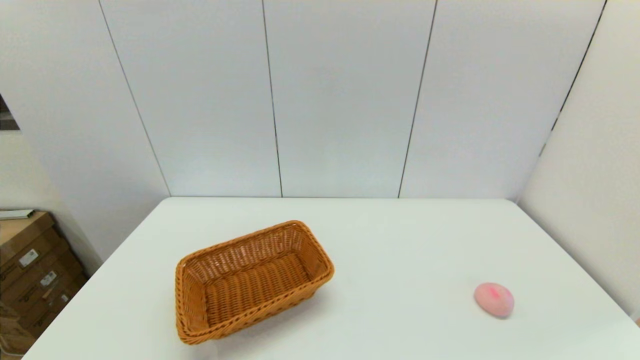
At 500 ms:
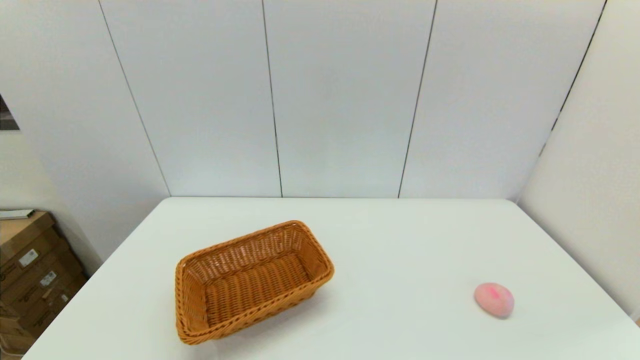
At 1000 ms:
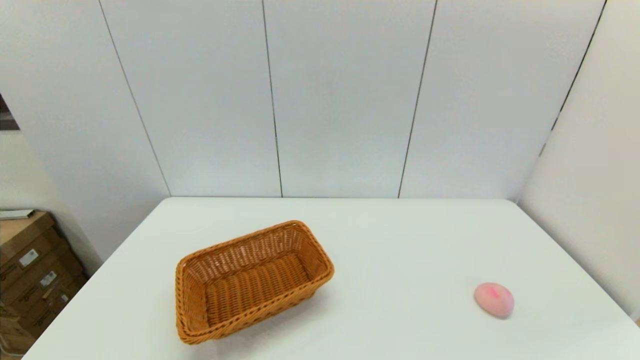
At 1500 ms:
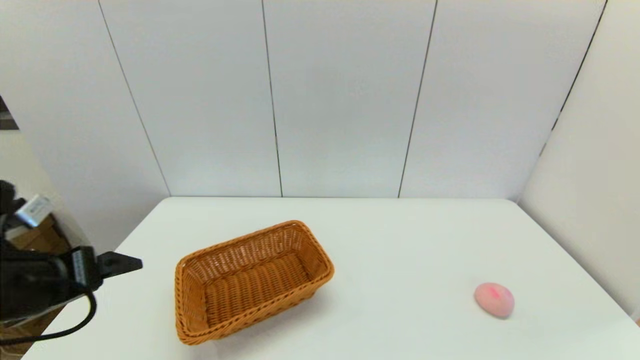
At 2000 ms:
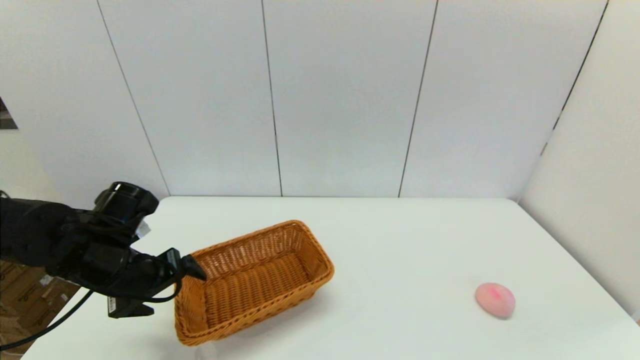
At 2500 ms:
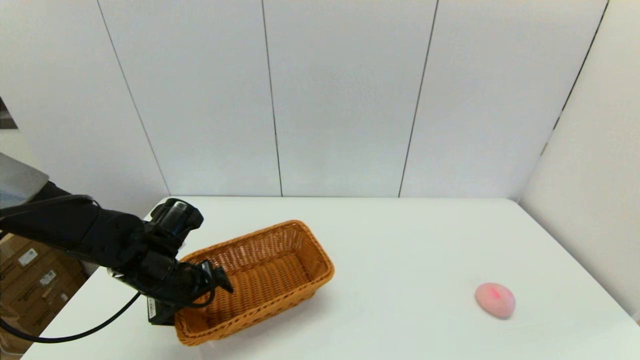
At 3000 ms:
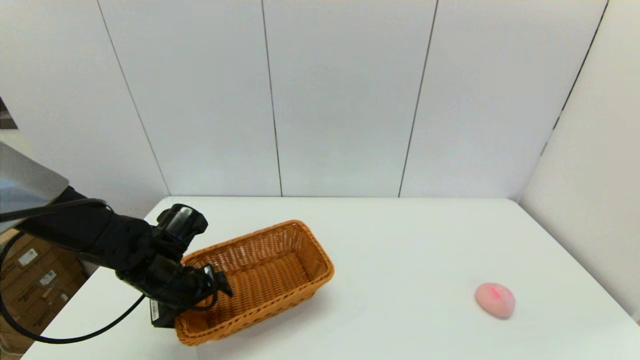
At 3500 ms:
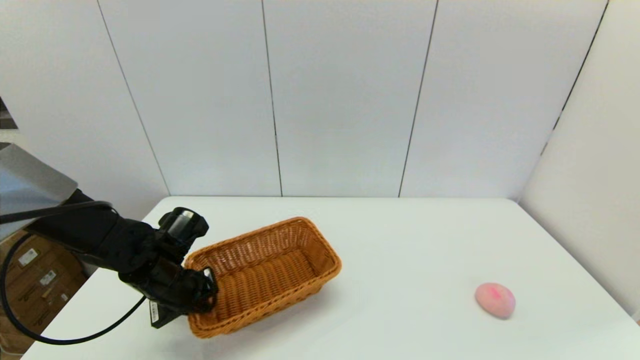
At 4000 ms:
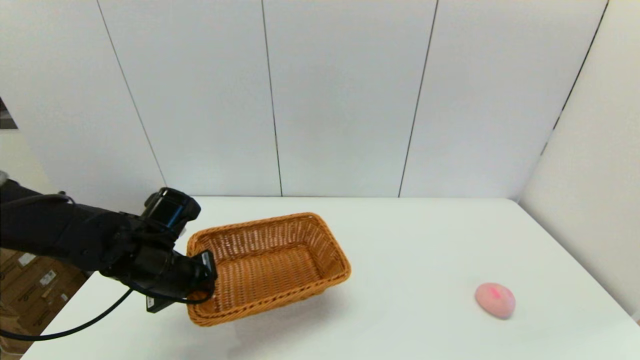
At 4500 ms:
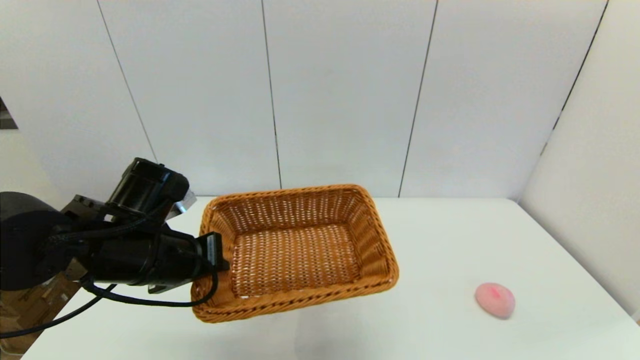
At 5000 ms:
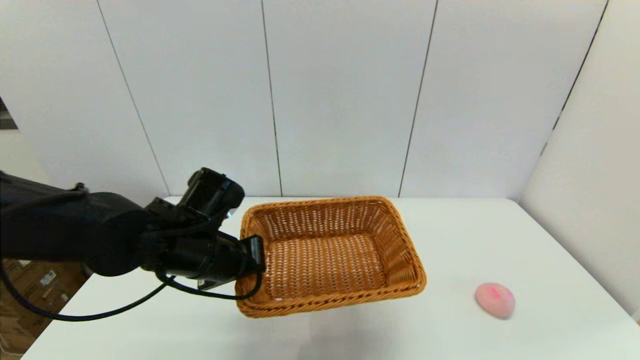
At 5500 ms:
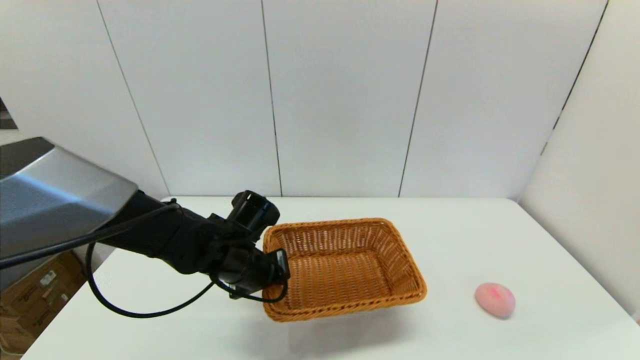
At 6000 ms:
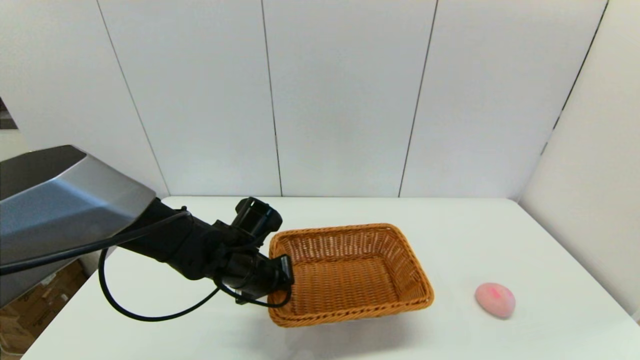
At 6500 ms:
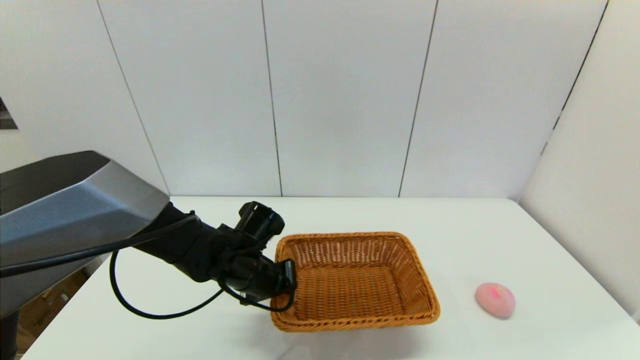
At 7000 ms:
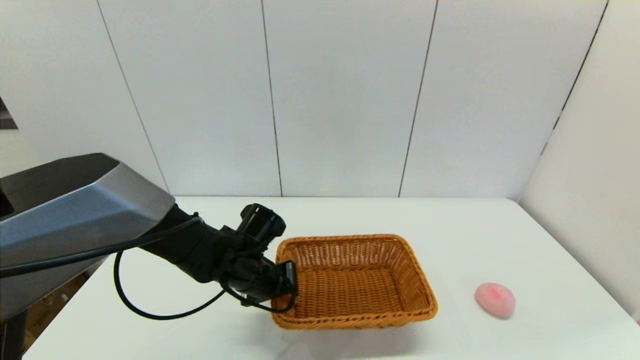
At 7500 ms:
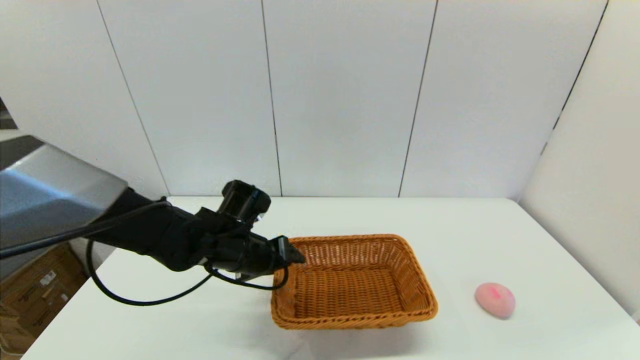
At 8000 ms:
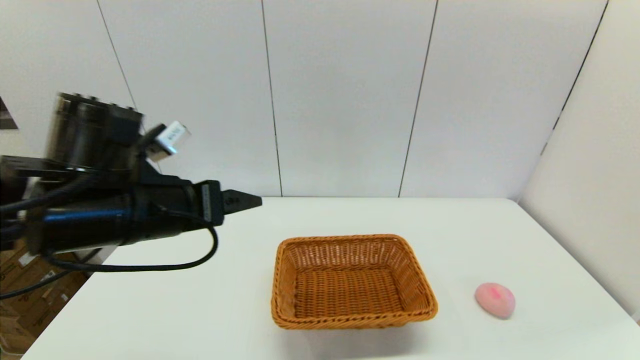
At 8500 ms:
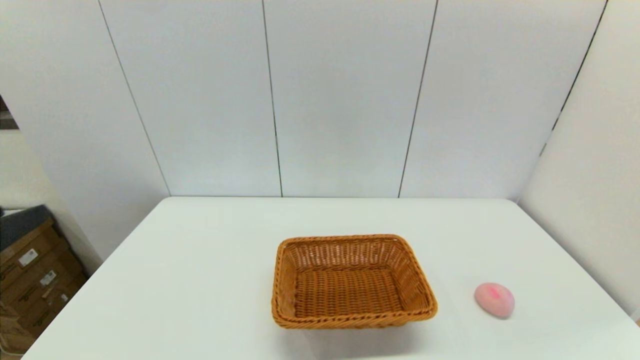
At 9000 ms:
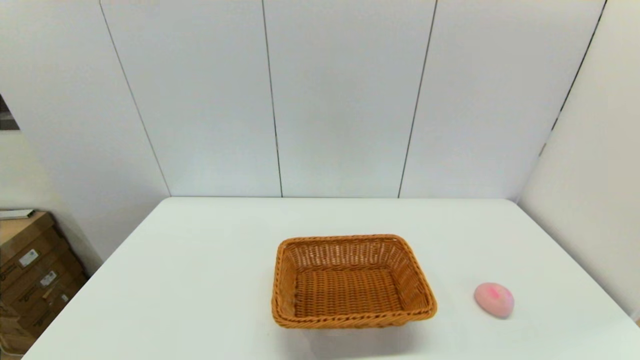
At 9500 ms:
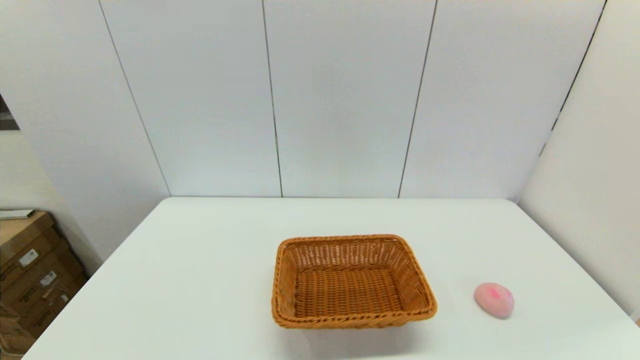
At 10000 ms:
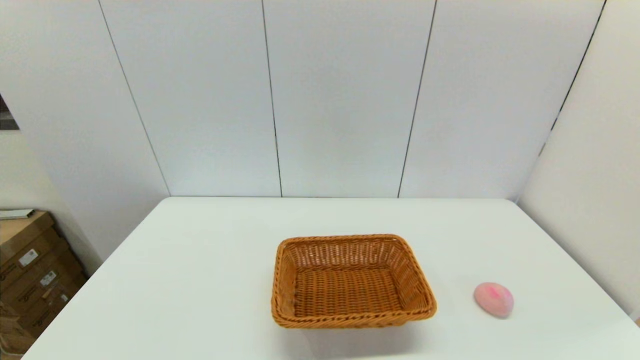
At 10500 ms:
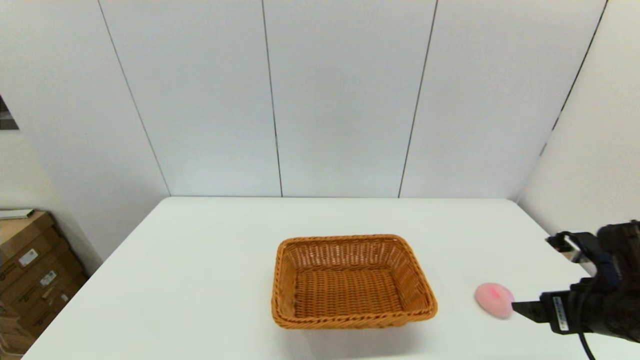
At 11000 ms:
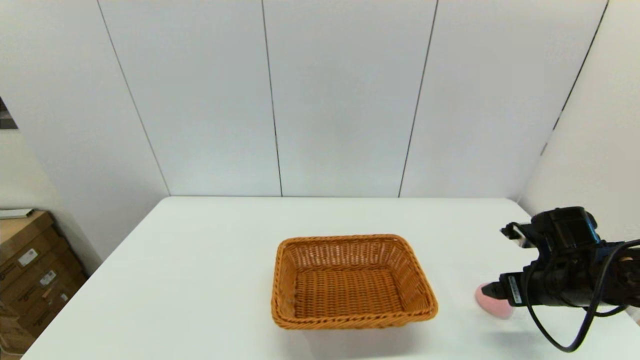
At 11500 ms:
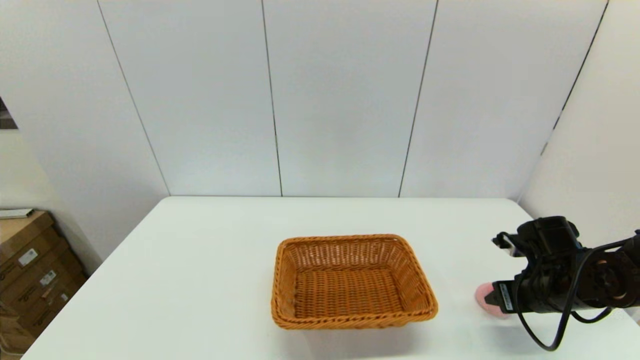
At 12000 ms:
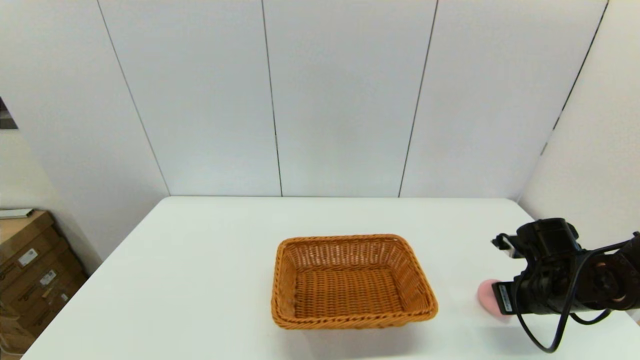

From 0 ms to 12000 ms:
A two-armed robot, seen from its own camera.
Step, from 0 ms to 3500 ms: Grasp the light basket with the left gripper.
Step, from 4000 ms to 7000 ms: Place the light basket on the middle of the table with the left gripper.
Step, from 7500 ms to 12000 ms: Grasp the peach with the right gripper.
From 0 ms to 2000 ms: The left gripper travels forward by approximately 25 cm.
From 2000 ms to 4000 ms: The left gripper closes up.
From 4000 ms to 6000 ms: The left gripper goes about 10 cm to the right.
From 6000 ms to 8000 ms: The left gripper heads upward, backward and to the left, covering about 20 cm, and opens its fingers.
From 8000 ms to 10000 ms: The right gripper travels upward by roughly 5 cm. The left gripper is displaced backward, downward and to the left by roughly 30 cm.
From 10000 ms to 12000 ms: The right gripper goes approximately 25 cm forward, and closes up.

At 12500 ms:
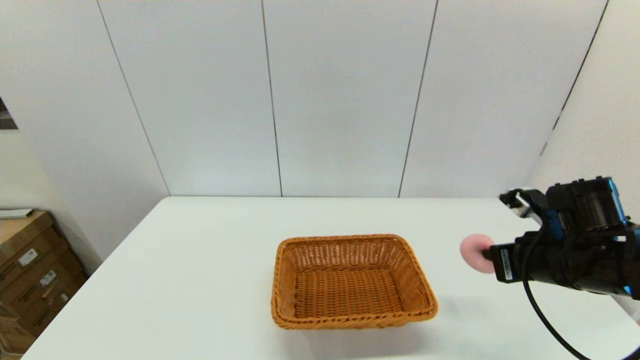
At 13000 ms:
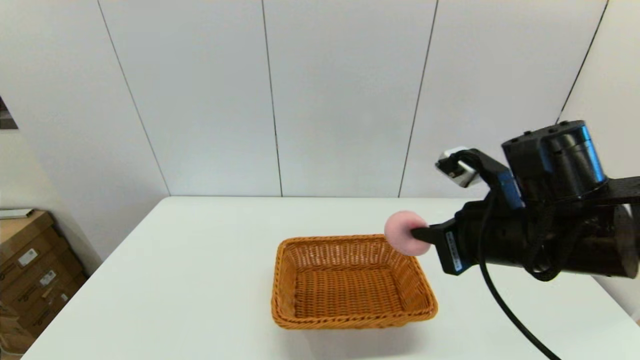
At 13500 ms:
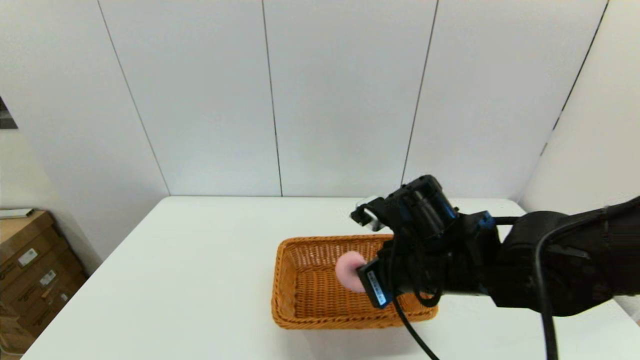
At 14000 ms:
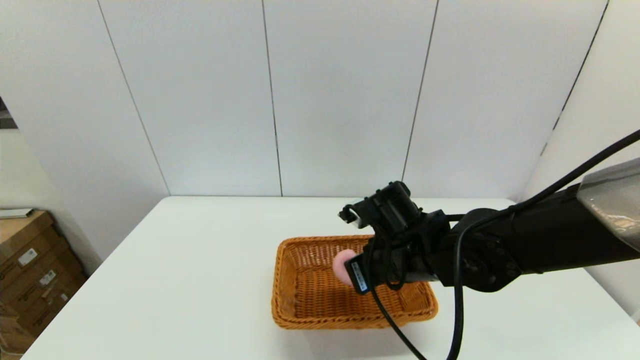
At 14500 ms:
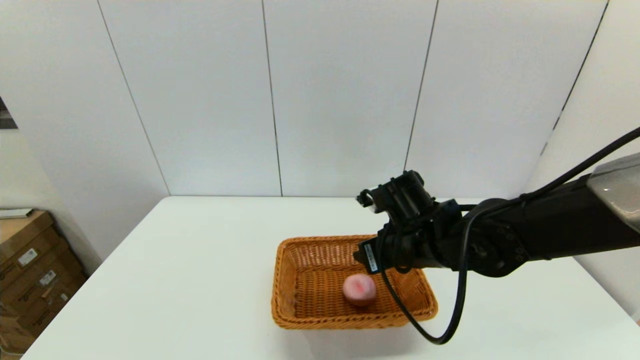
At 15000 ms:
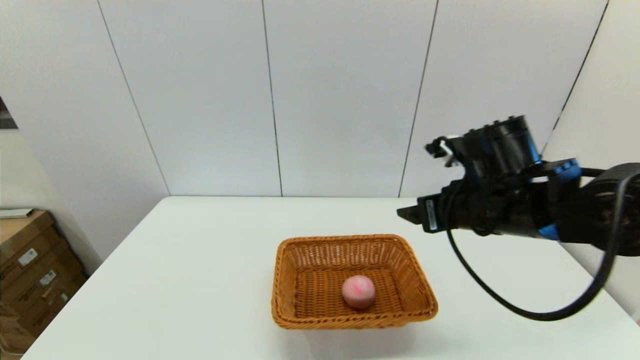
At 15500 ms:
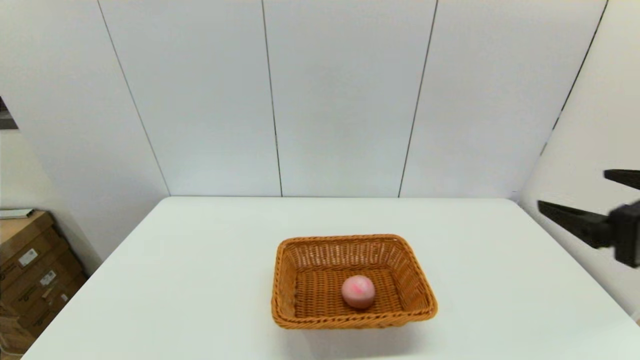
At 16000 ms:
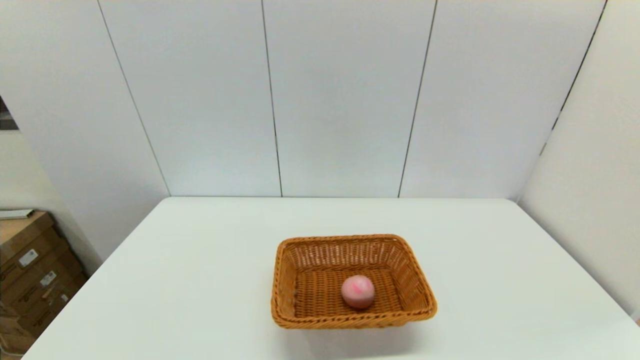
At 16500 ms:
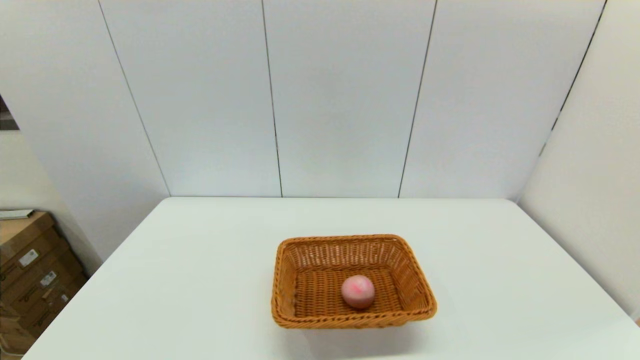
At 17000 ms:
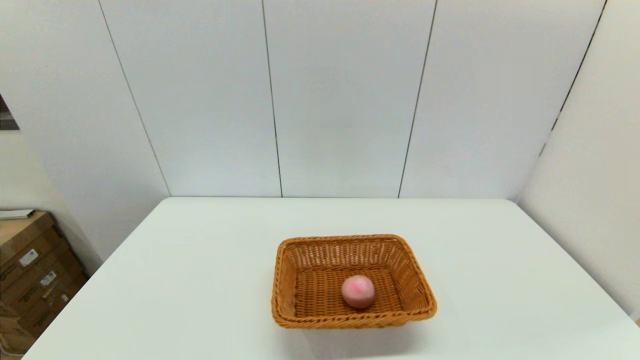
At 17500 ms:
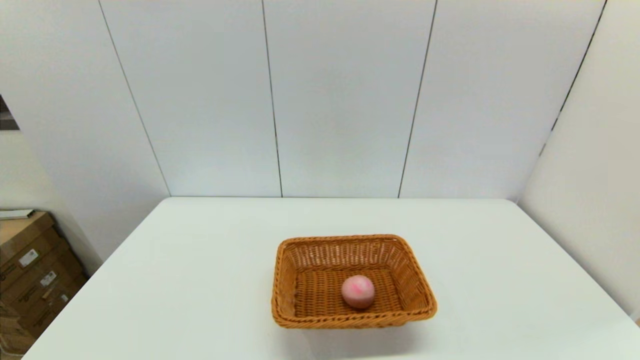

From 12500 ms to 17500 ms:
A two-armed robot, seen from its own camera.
Step, from 12500 ms to 14500 ms: Place the peach into the light basket with the right gripper.
From 12500 ms to 15000 ms: The right gripper shifts some 10 cm to the left and upward, and opens up.
From 15000 ms to 17500 ms: The right gripper moves backward and to the right, some 35 cm.

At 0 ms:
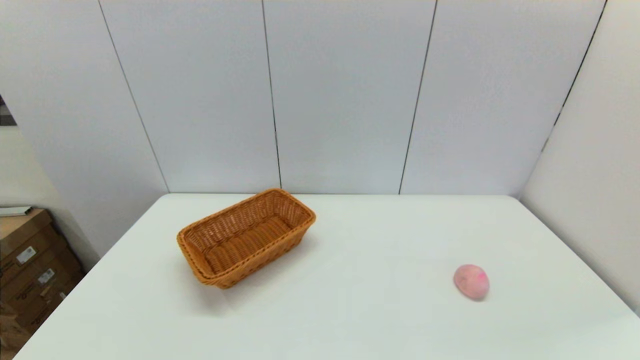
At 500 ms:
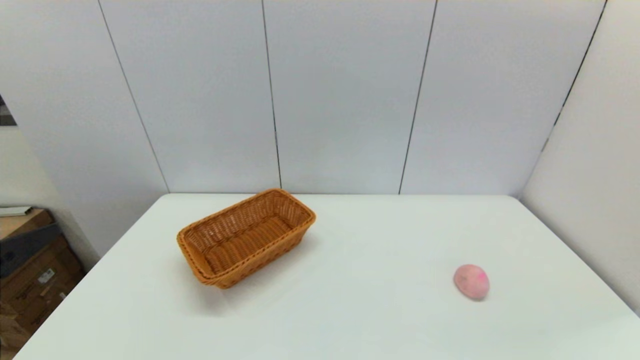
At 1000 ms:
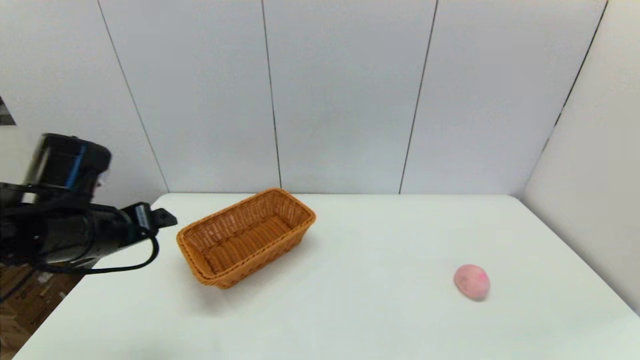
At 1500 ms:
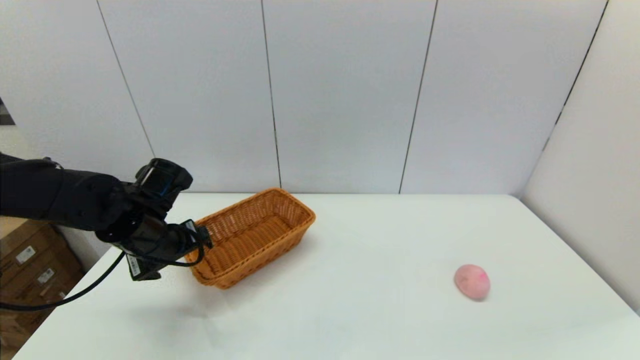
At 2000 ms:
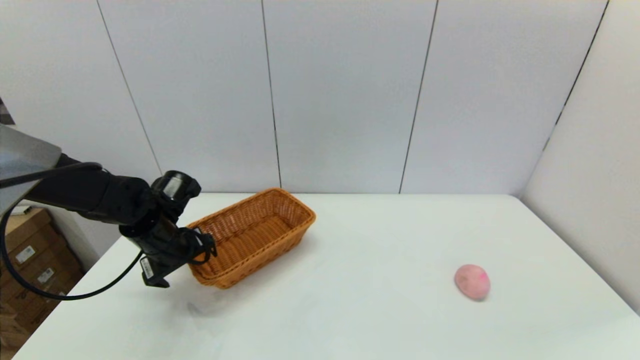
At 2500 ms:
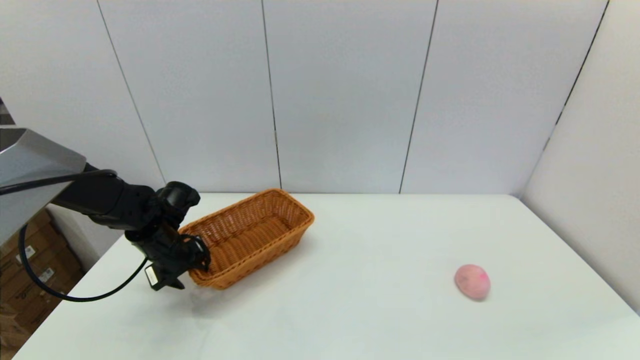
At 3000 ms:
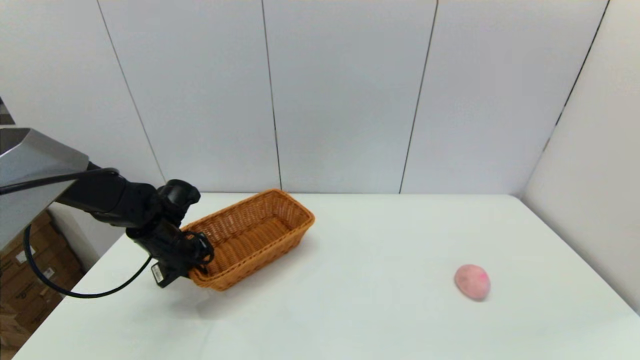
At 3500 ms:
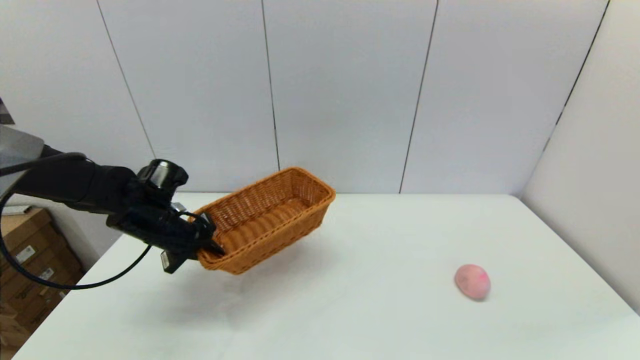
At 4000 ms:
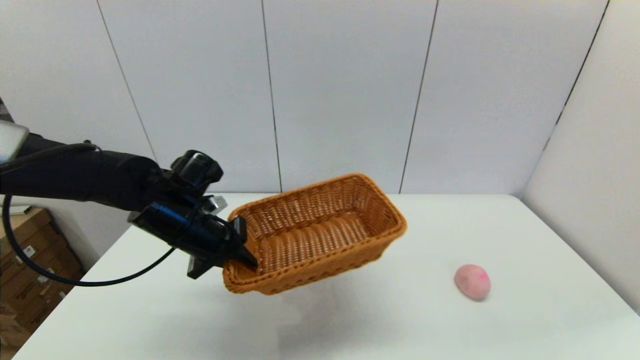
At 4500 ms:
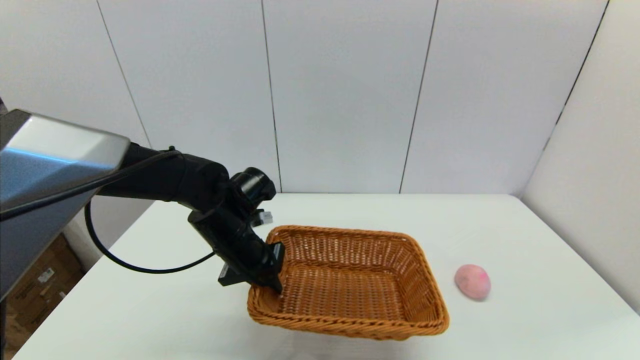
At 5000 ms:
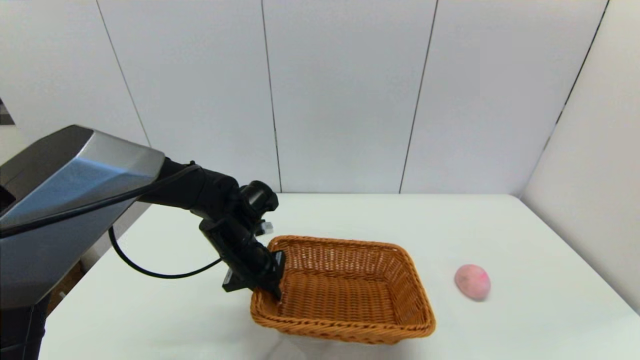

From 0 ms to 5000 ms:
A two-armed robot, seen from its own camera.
Step, from 0 ms to 2500 ms: Grasp the light basket with the left gripper.
From 0 ms to 2500 ms: The left gripper is displaced forward by approximately 40 cm, and closes its fingers.
From 2500 ms to 5000 ms: The left gripper moves to the right, approximately 15 cm, and closes up.
